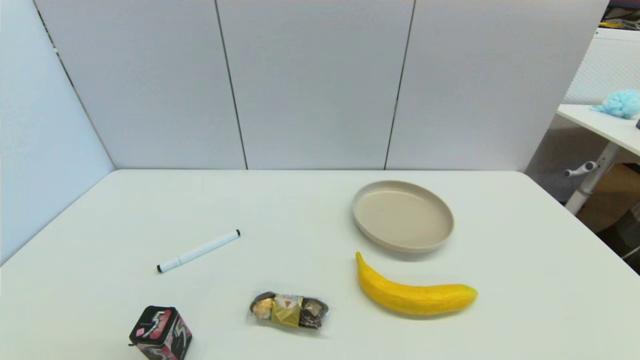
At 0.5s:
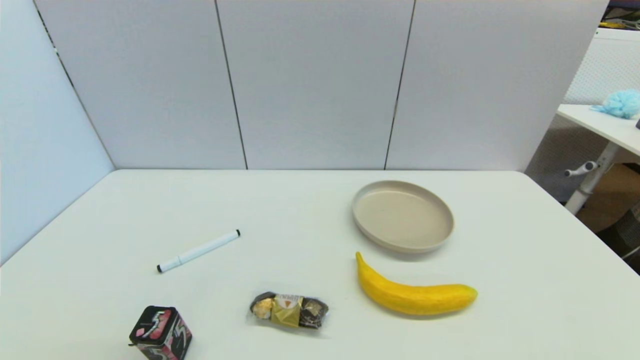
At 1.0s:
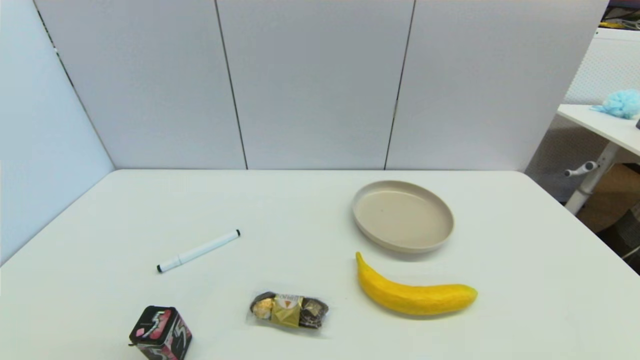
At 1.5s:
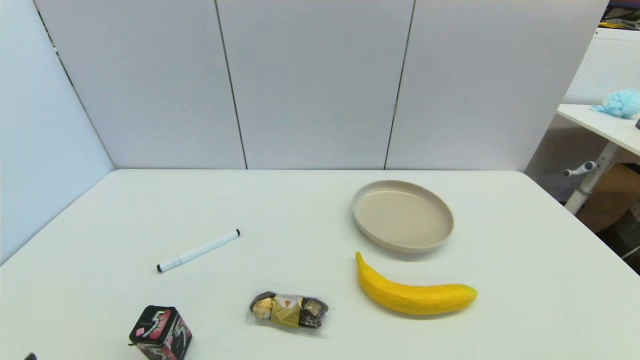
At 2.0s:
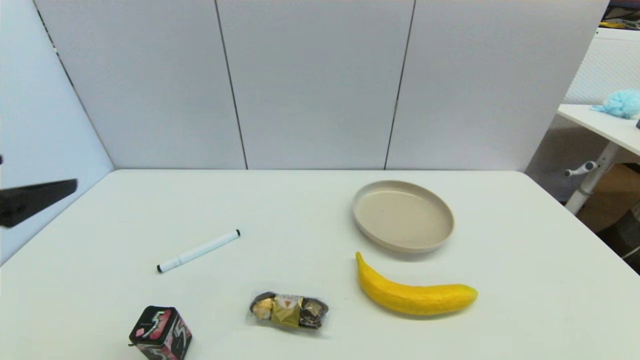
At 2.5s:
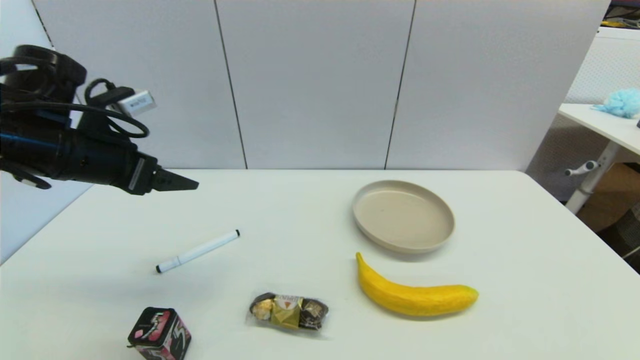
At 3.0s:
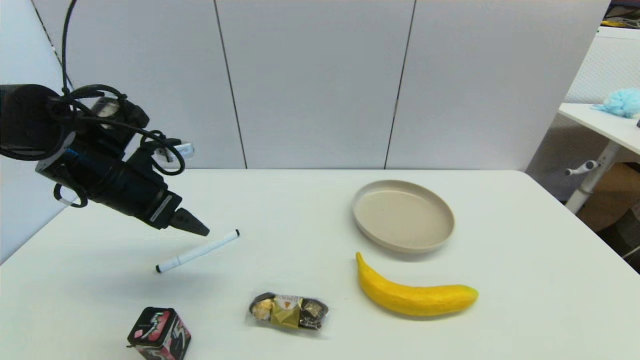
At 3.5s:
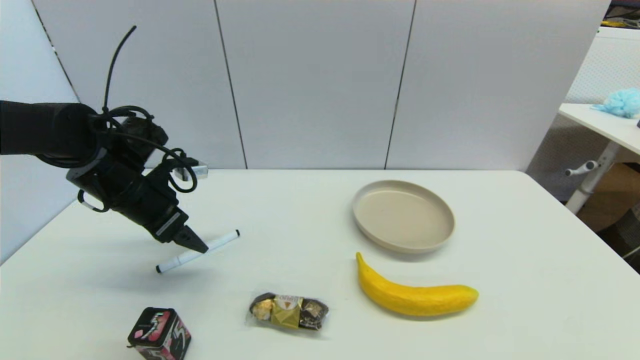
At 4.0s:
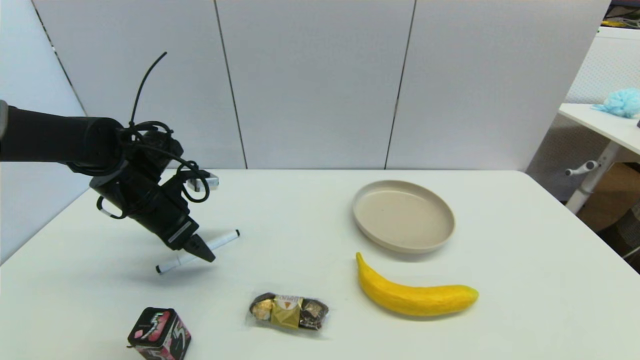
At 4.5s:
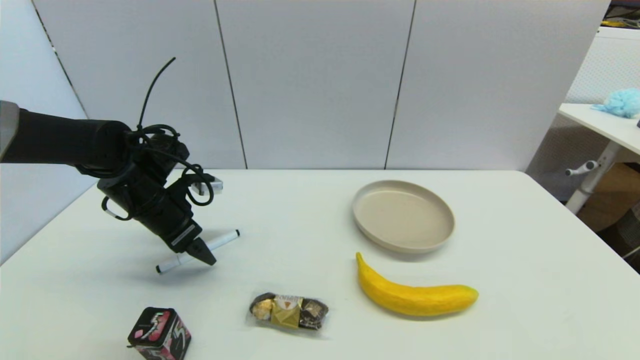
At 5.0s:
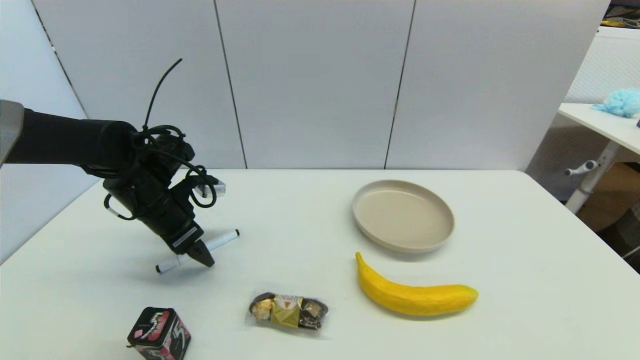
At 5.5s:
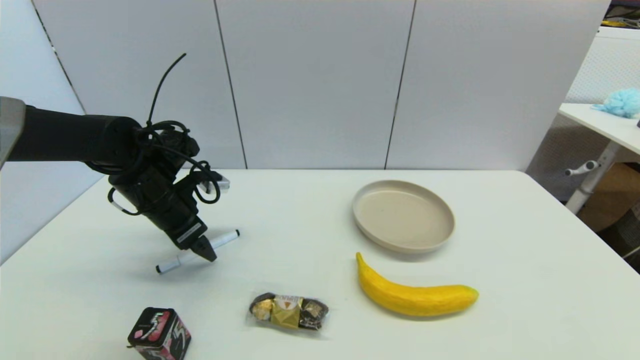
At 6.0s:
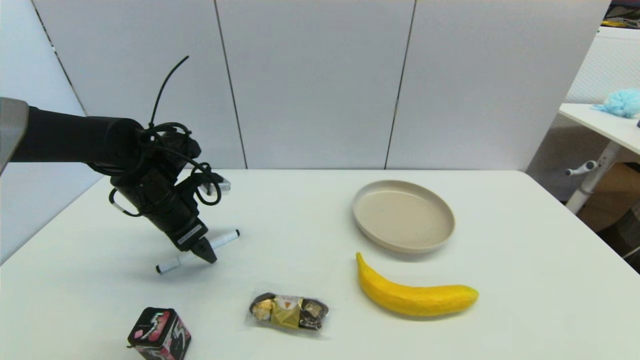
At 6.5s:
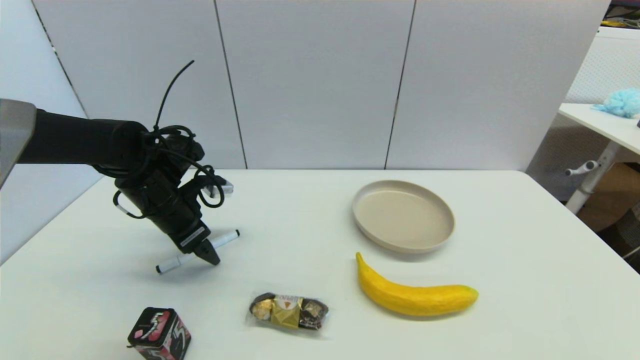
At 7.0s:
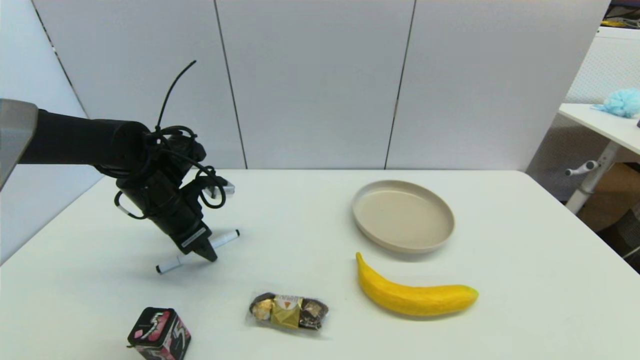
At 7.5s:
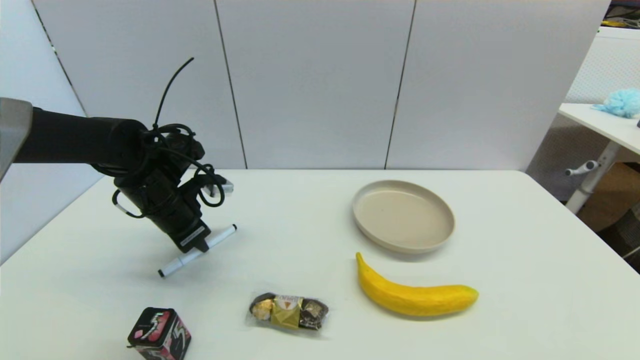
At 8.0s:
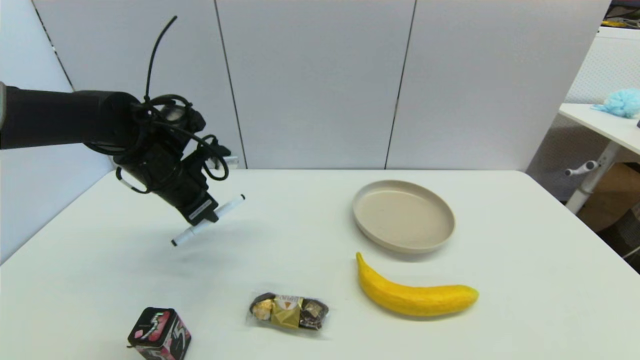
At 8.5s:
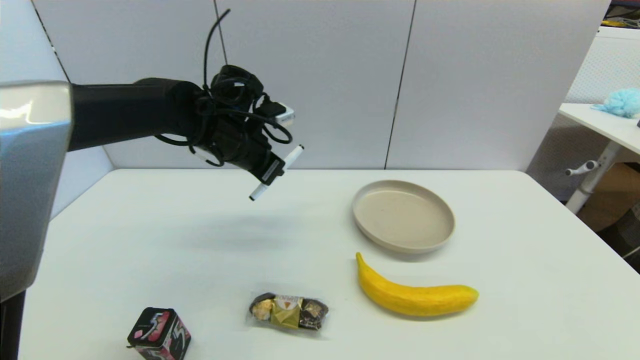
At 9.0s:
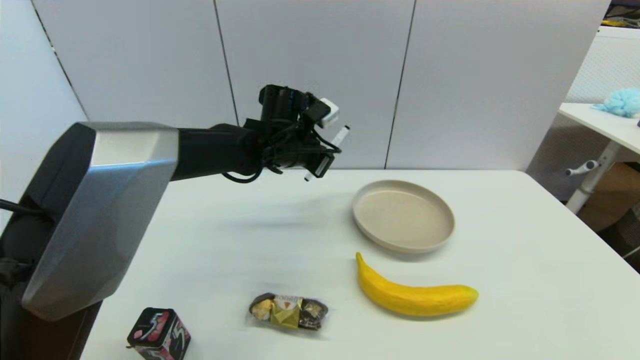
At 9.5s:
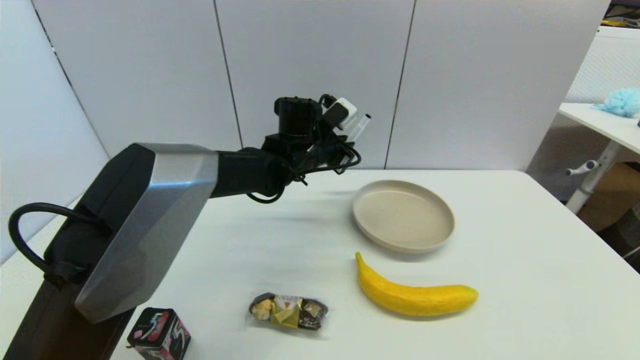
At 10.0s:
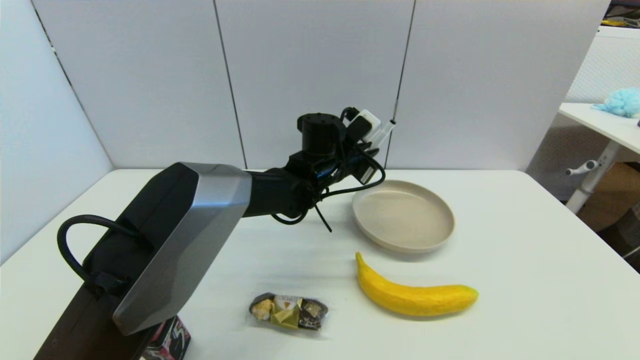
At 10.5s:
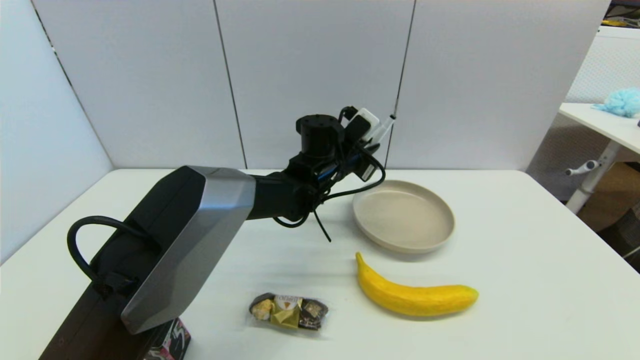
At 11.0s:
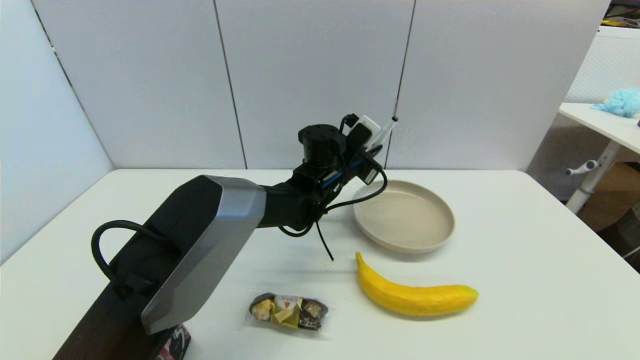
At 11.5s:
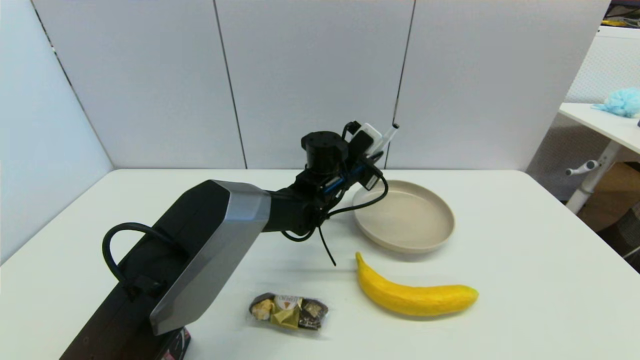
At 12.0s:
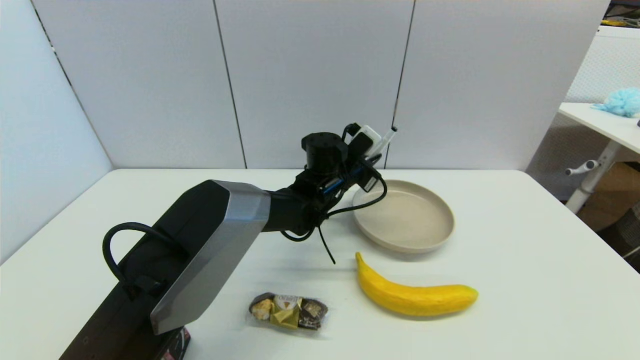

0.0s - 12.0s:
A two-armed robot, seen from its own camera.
Task of the whole recording: put the black marker in the designated position.
Step, 2.0s - 7.0s: Grasp the Marker pen with left gripper.
0.0s - 2.0s: The left gripper heads upward and forward, covering approximately 25 cm.
2.0s - 4.0s: The left gripper is displaced forward and downward by some 25 cm.
4.0s - 6.0s: There are only small adjustments of the grippers.
6.0s - 8.0s: The left gripper closes its fingers.
8.0s - 10.0s: The left gripper goes some 25 cm to the right.
10.0s - 12.0s: The grippers make only small movements.

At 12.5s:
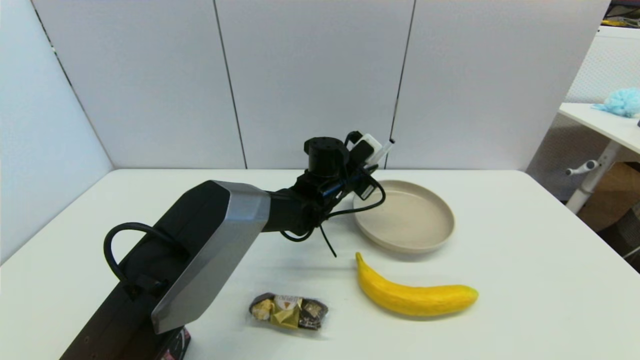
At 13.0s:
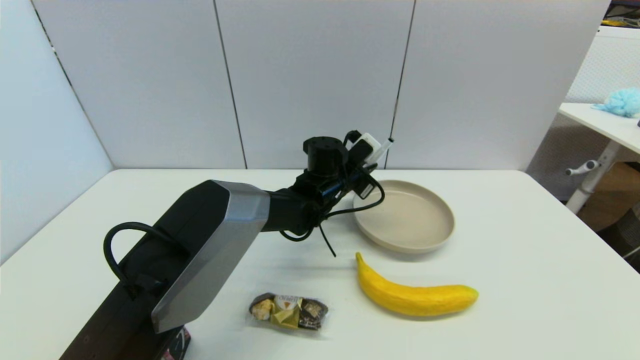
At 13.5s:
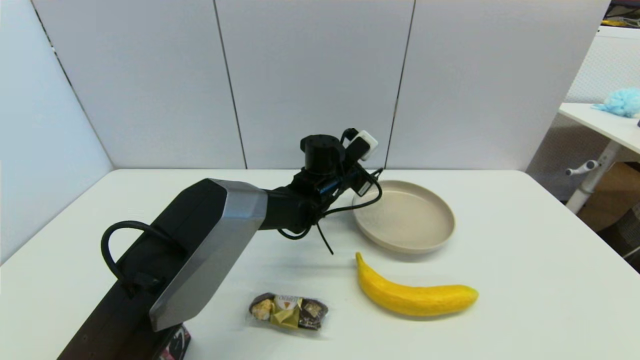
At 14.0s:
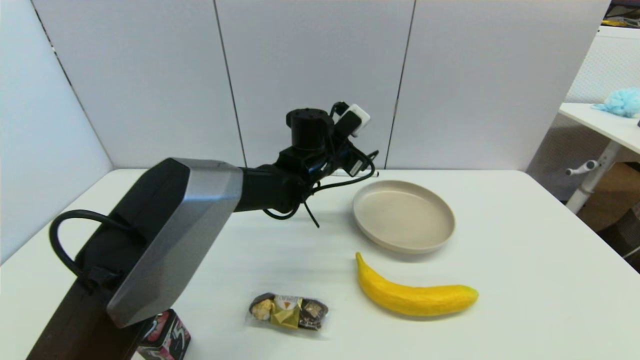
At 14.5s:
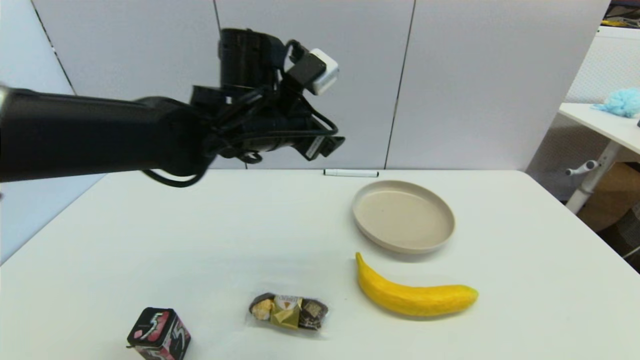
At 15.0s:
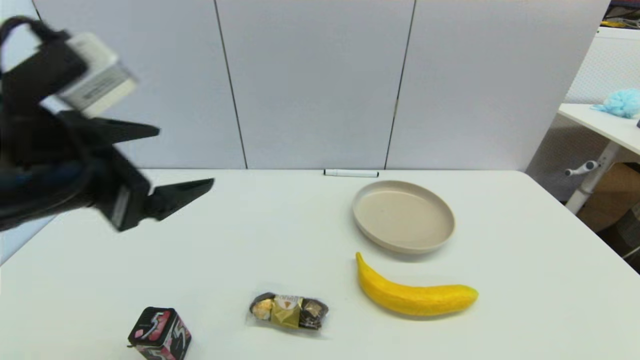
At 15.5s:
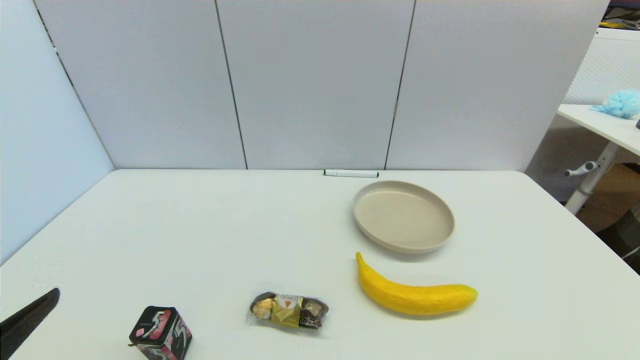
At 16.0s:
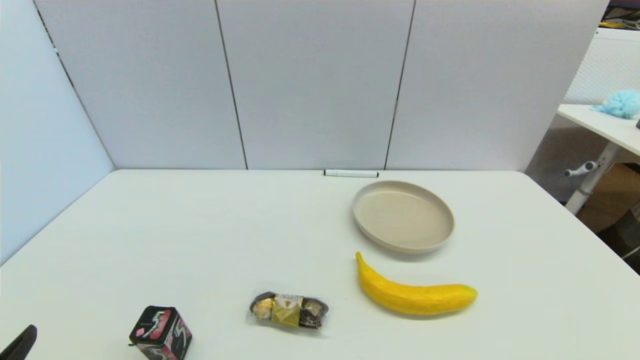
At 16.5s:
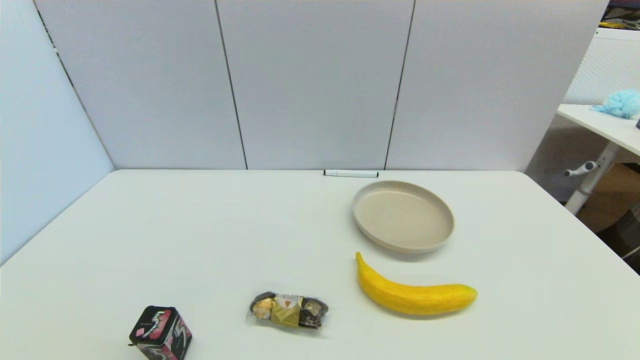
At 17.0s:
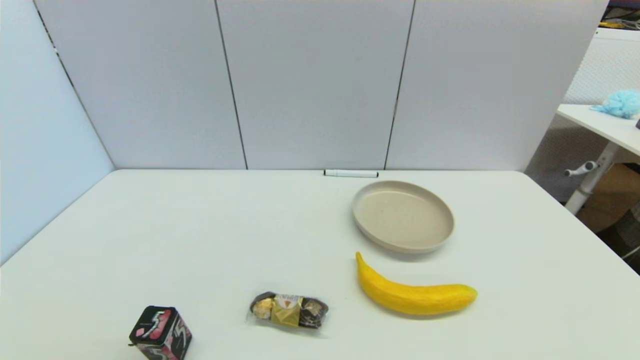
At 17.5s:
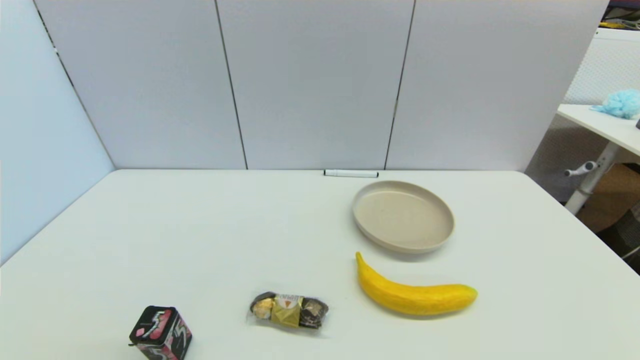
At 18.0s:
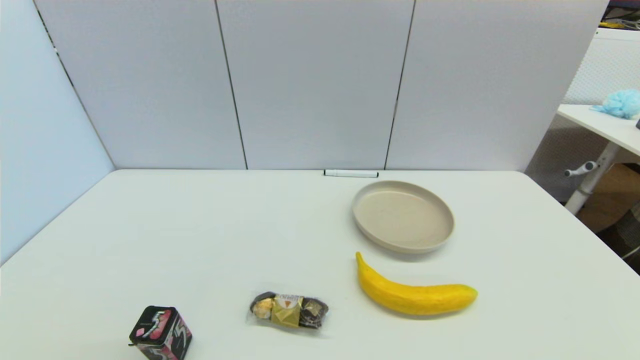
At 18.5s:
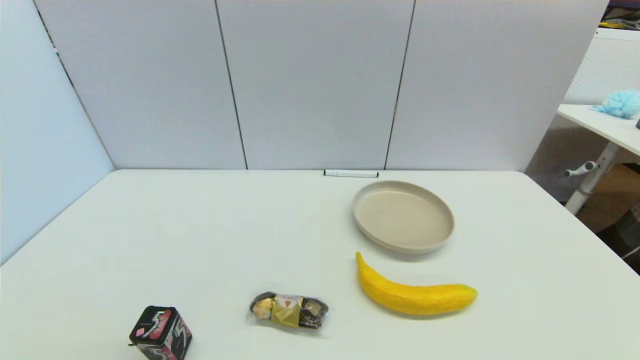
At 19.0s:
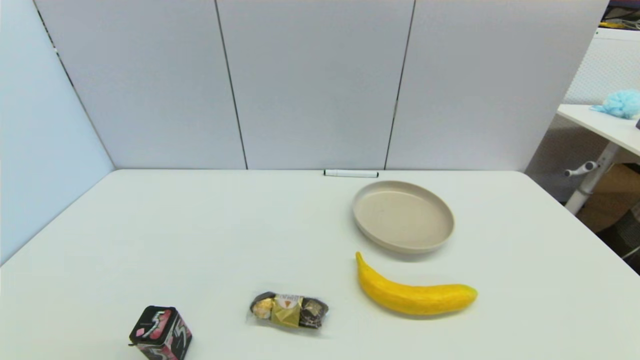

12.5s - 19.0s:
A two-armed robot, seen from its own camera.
Task of the whole recording: put the black marker in the designated position.
12.5s - 14.5s: The left gripper is displaced upward, backward and to the left by roughly 20 cm, and opens up.
14.5s - 17.0s: The left gripper heads backward, to the left and downward, covering some 50 cm.

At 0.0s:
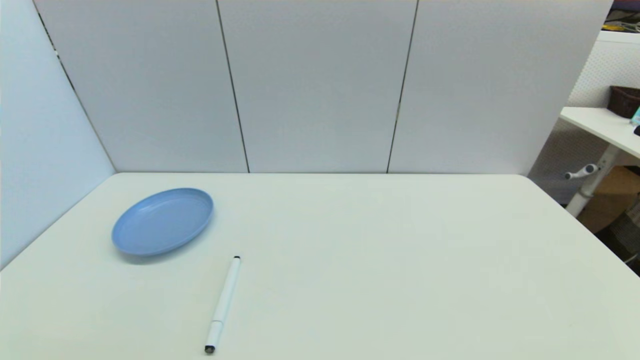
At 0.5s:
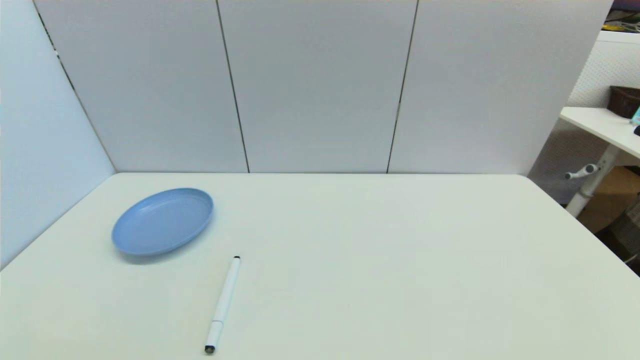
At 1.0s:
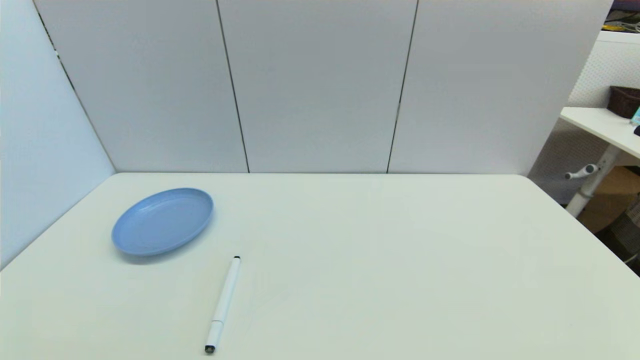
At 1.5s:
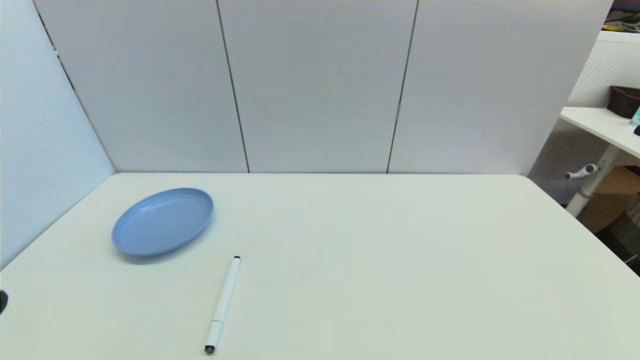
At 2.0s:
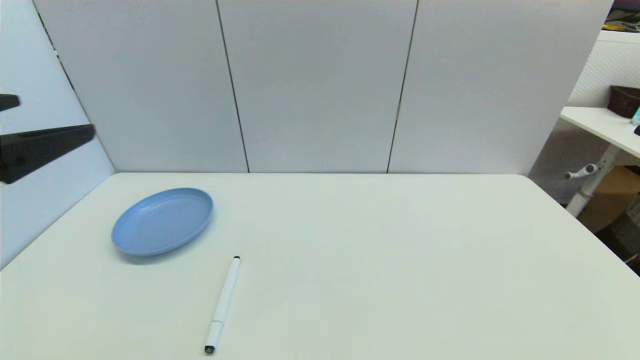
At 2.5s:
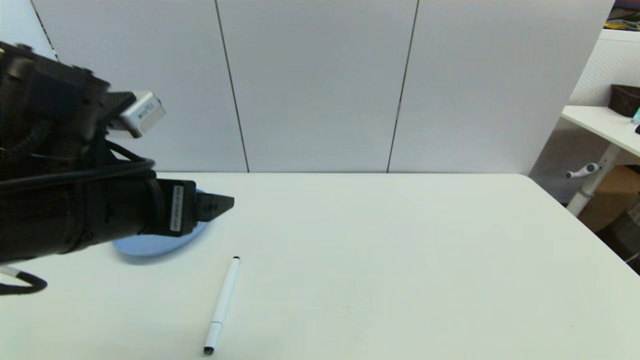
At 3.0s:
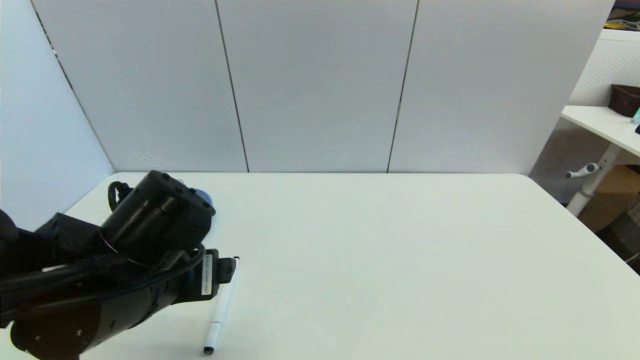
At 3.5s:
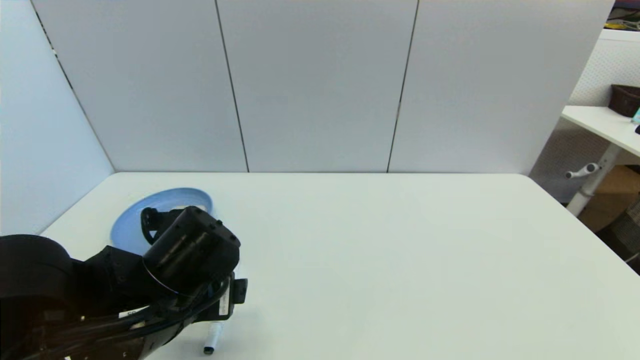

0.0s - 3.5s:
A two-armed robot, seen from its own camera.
Task of the whole recording: put the black marker in the designated position.
0.0s - 2.0s: The left gripper moves upward and forward, roughly 30 cm.
2.0s - 3.5s: The left gripper heads downward and to the right, covering about 20 cm.
